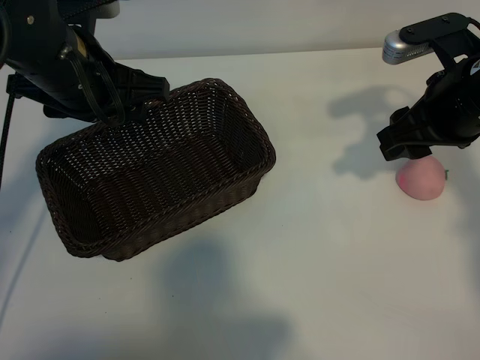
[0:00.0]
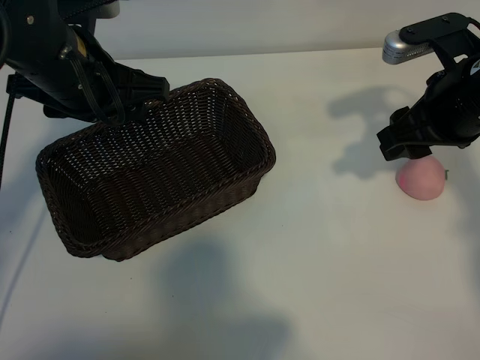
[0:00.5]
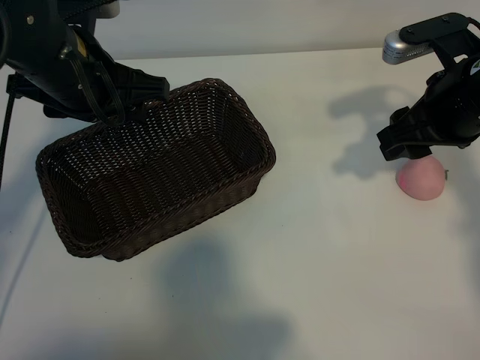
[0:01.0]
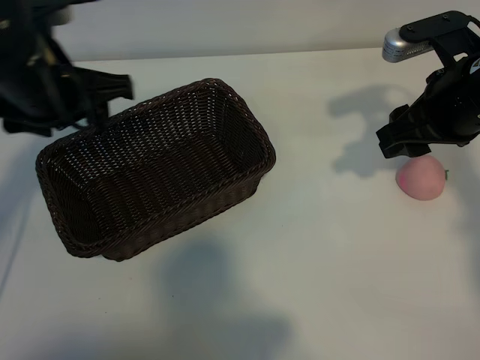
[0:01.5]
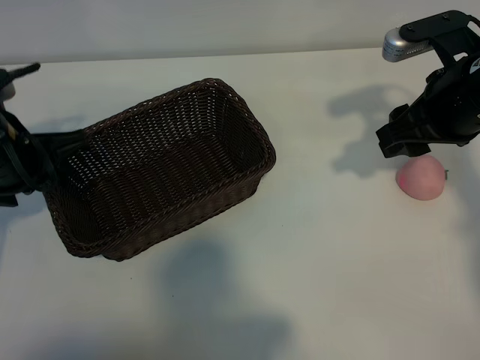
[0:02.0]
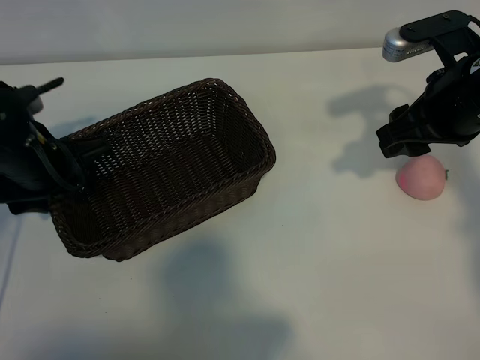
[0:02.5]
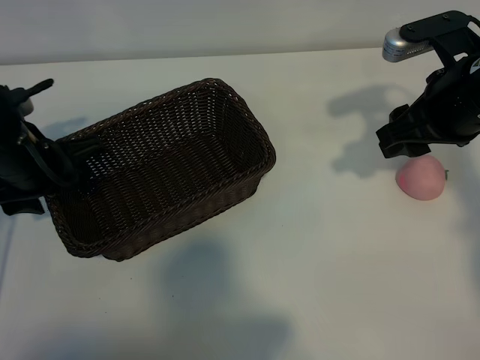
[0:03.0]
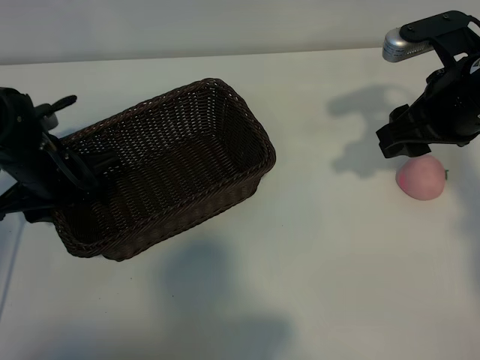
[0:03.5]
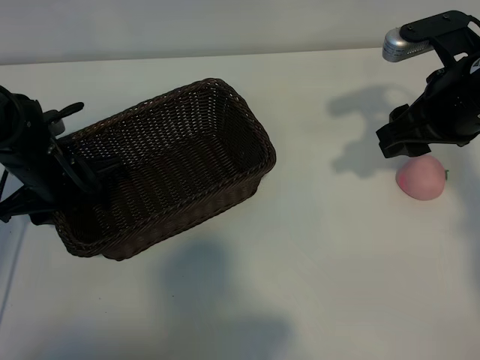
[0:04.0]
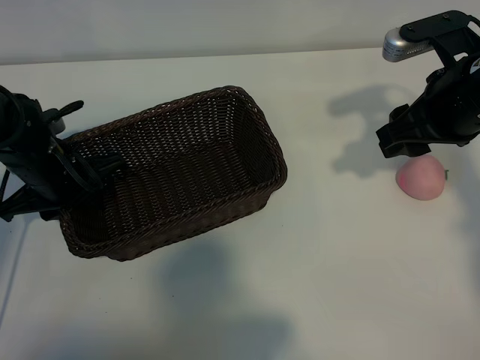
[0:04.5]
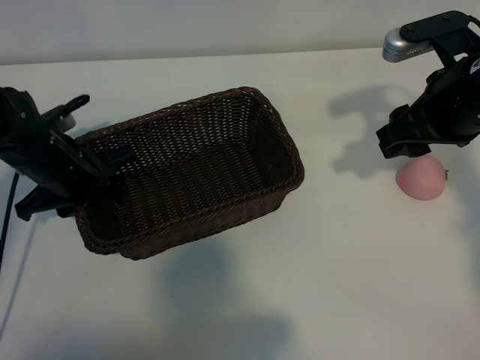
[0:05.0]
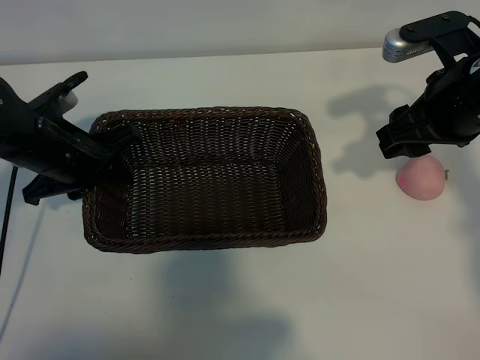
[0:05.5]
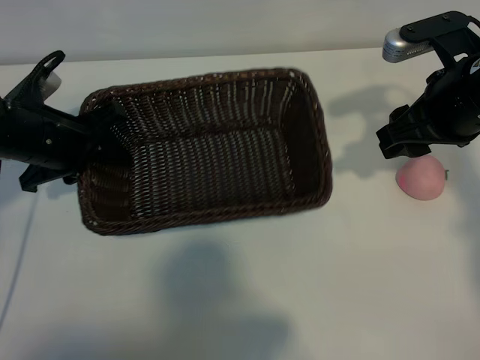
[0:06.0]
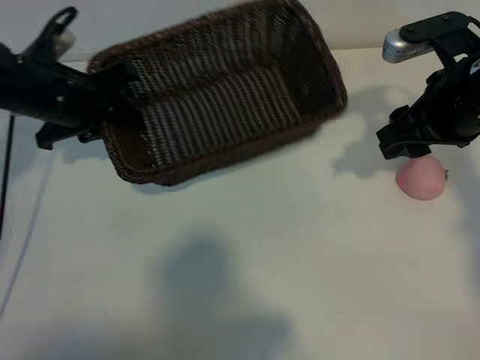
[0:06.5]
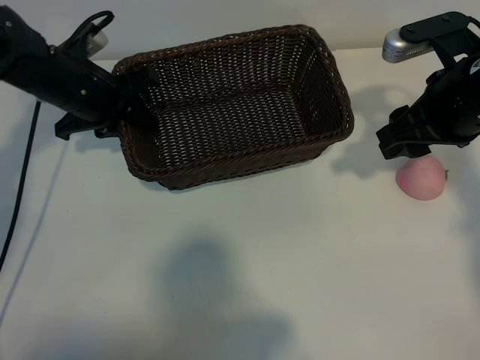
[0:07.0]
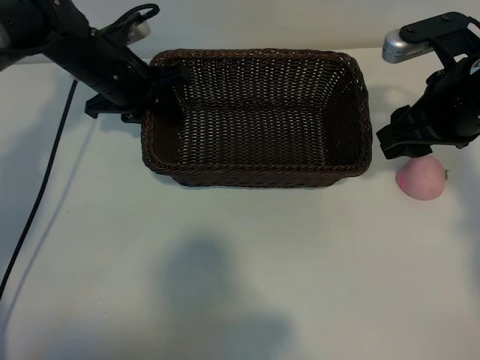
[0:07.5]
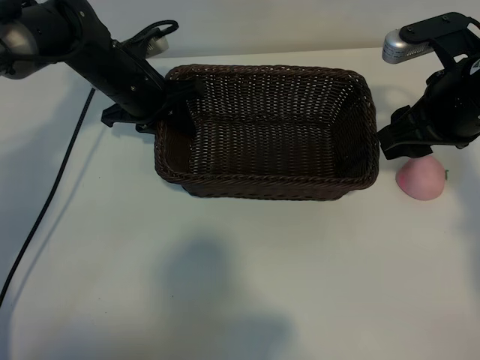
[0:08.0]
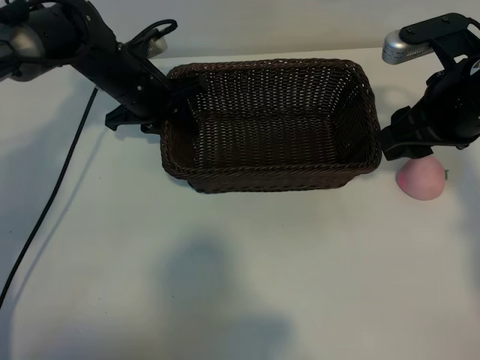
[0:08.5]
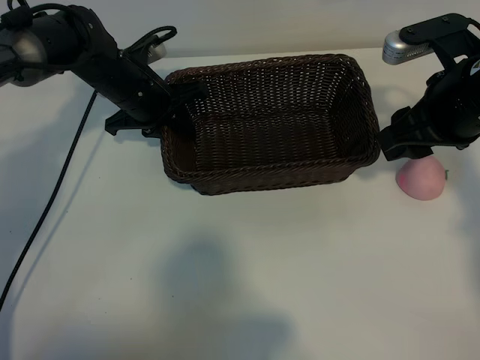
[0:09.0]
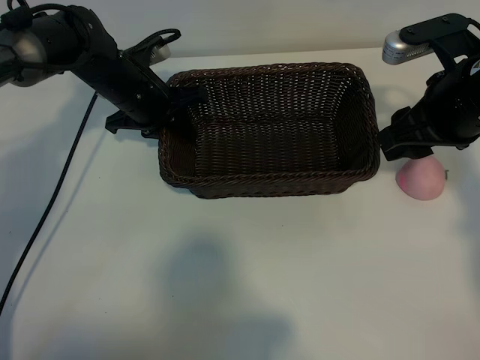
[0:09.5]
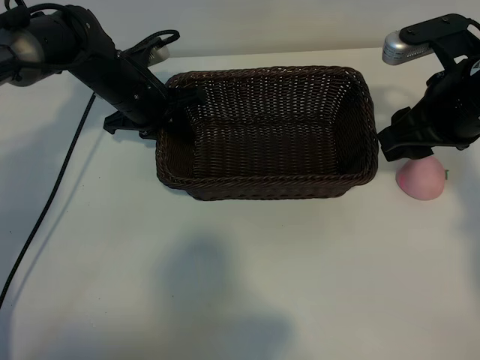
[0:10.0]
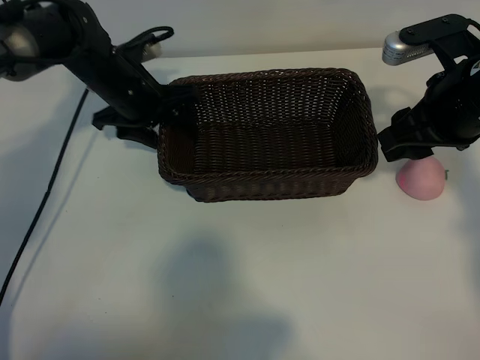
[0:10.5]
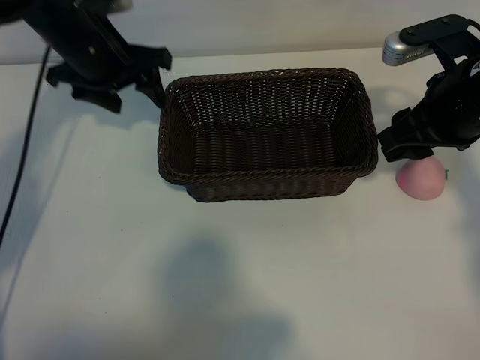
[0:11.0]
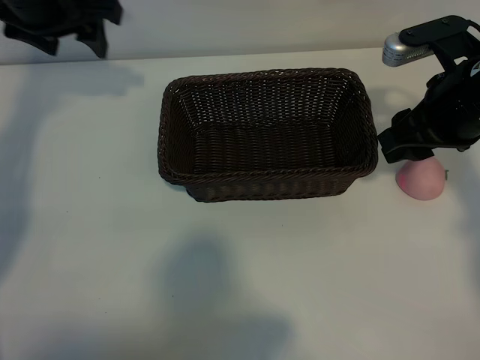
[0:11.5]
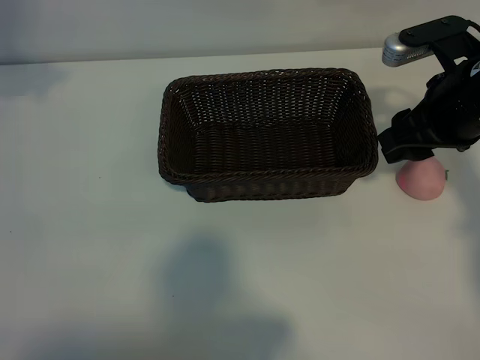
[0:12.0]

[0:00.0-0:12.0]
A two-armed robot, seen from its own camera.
Task of the whole recording: pick up the peach and put it into the basket.
Step, 0:01.5 to 0:04.5: Grasp the basket with left gripper.
Step, 0:05.0 to 0:10.5: Place the basket in the center of view with left gripper.

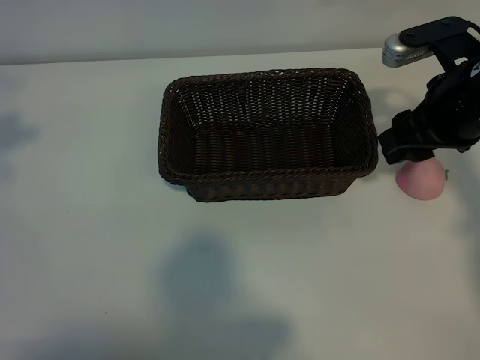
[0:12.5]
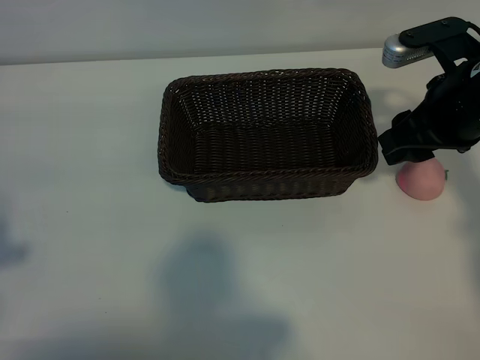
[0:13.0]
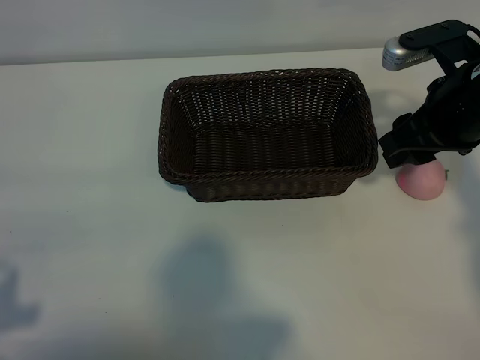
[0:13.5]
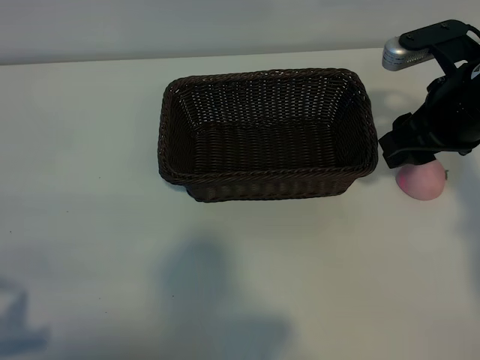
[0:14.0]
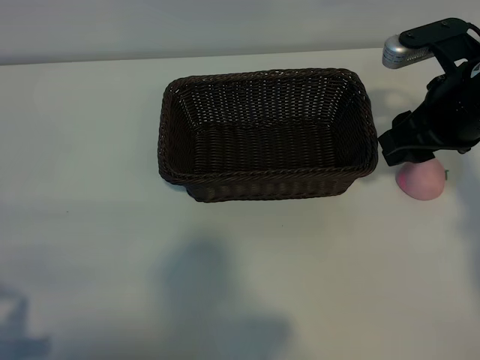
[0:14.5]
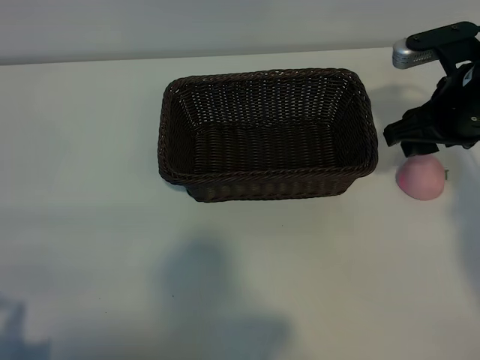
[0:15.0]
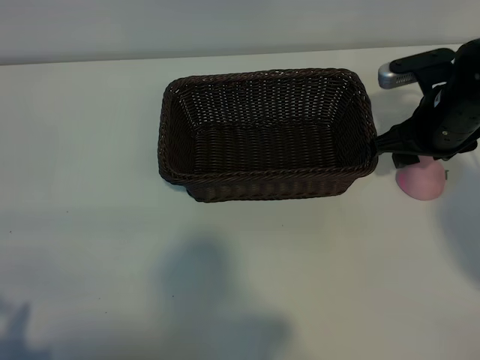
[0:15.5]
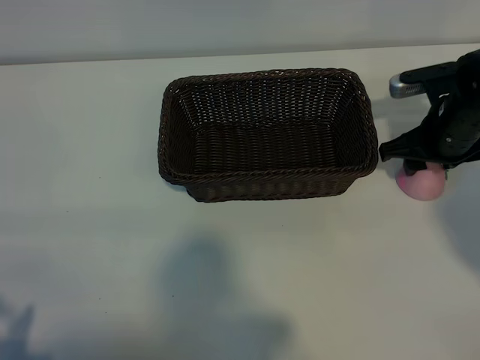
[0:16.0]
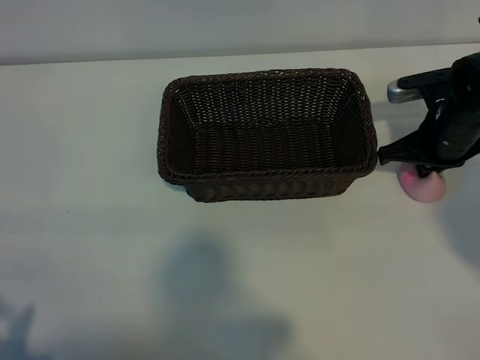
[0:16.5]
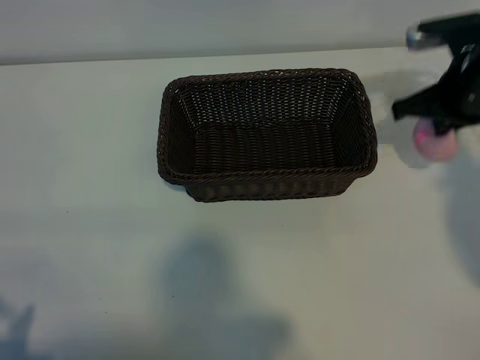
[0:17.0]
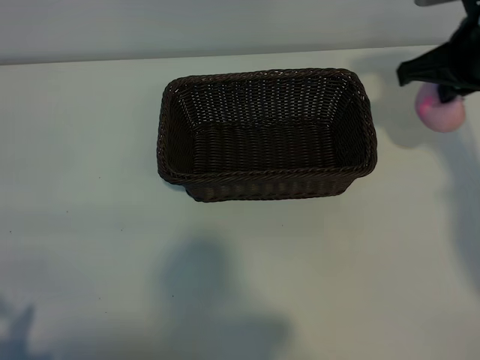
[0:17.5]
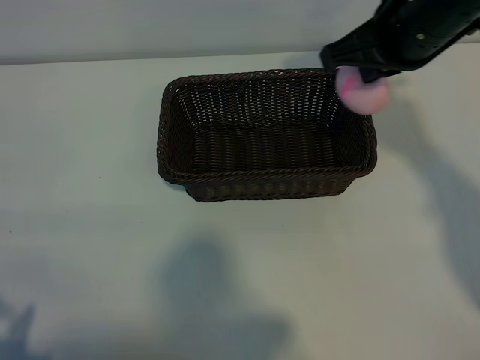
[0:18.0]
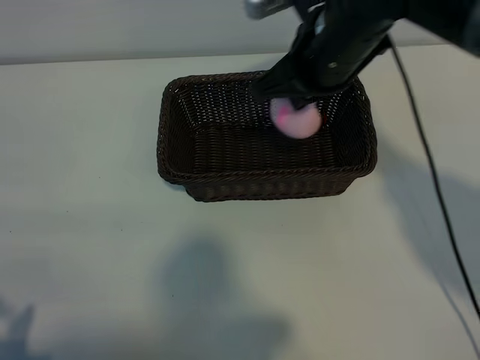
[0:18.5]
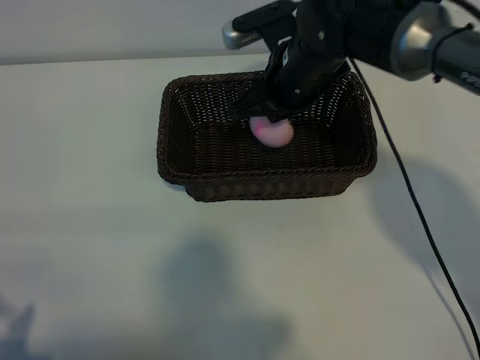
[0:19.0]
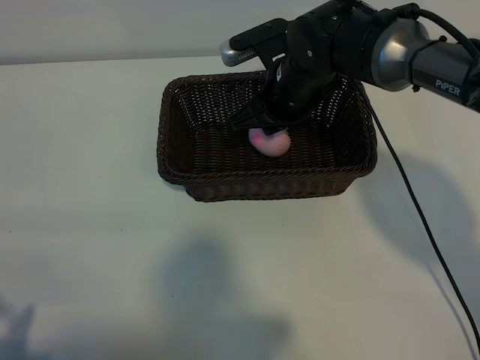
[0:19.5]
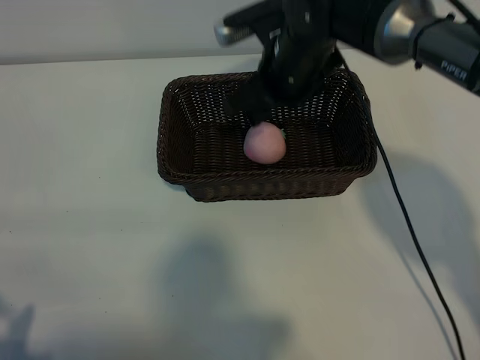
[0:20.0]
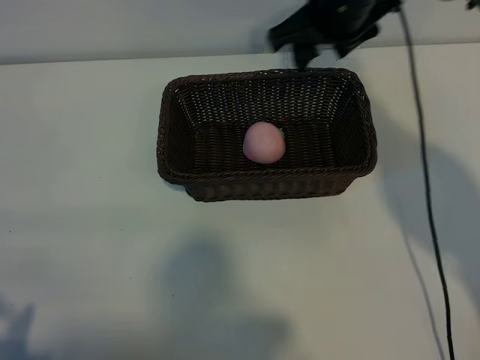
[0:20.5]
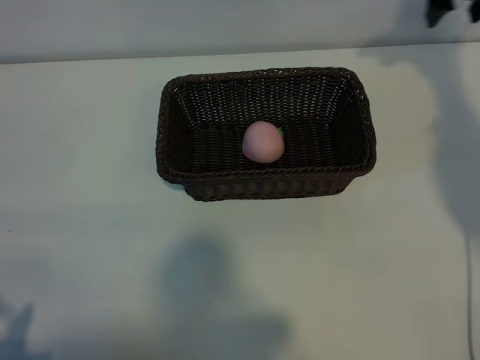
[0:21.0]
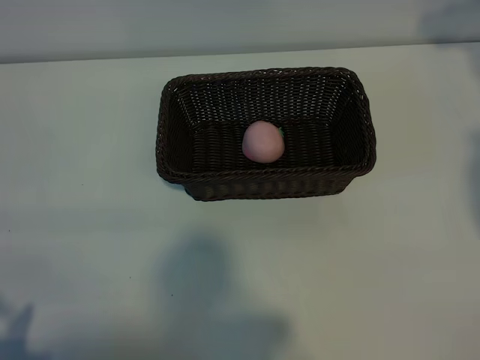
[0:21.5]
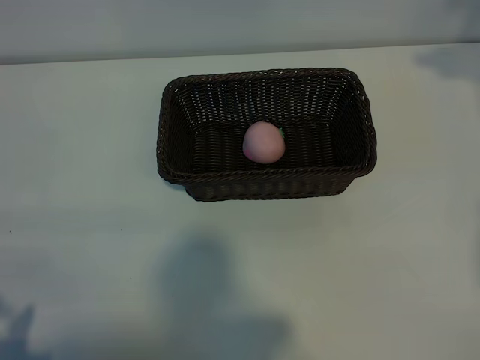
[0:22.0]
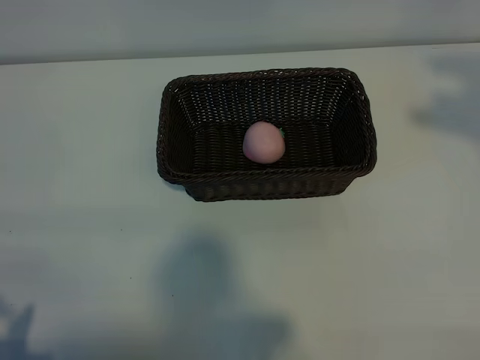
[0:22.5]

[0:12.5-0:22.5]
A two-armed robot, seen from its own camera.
Task of the whole recording: pick up the peach and put it into the basket.
Step, 0:12.5 to 0:16.5: Grasp the peach with right gripper.
Step, 0:17.0 to 0:19.5: Place the peach in the basket with right gripper.

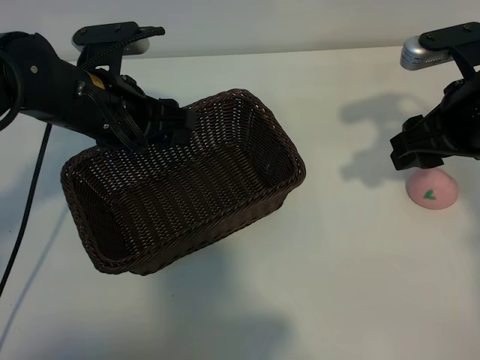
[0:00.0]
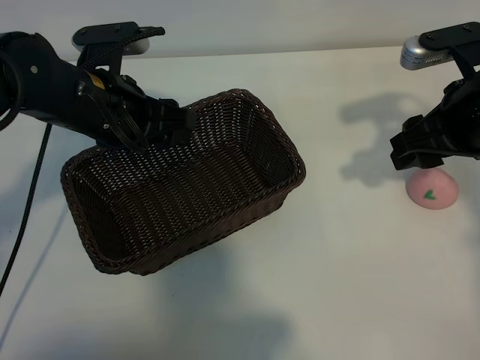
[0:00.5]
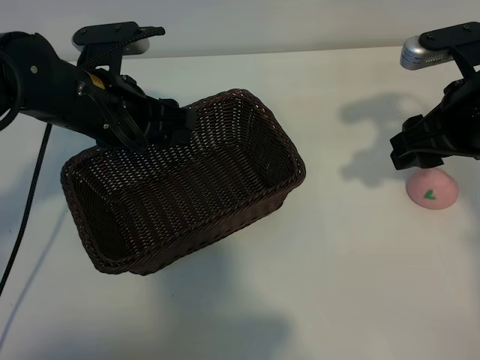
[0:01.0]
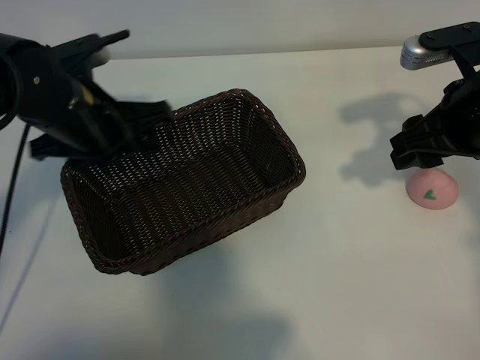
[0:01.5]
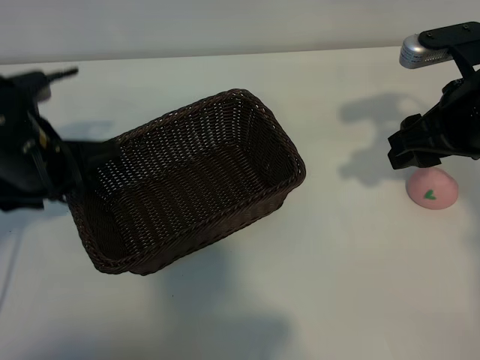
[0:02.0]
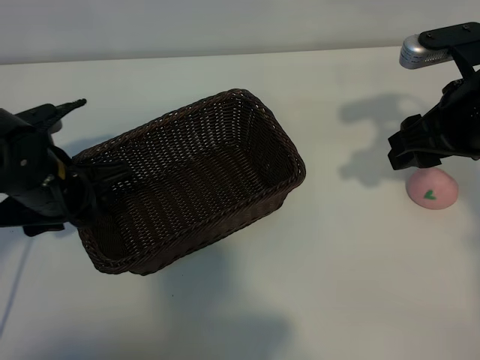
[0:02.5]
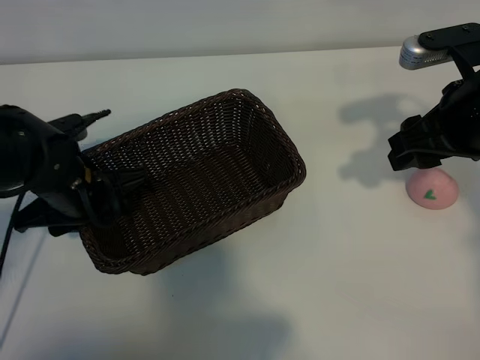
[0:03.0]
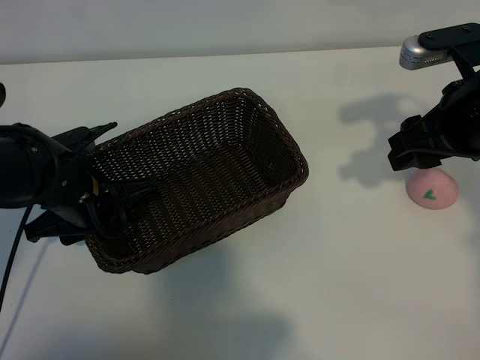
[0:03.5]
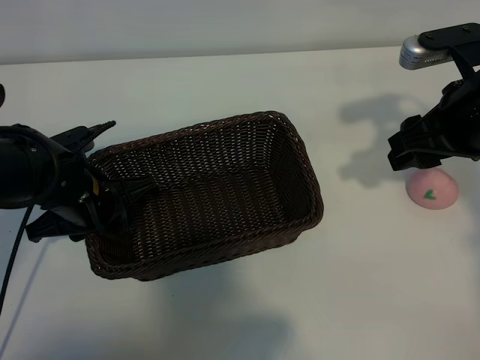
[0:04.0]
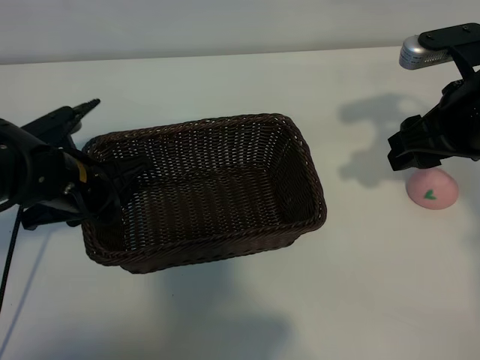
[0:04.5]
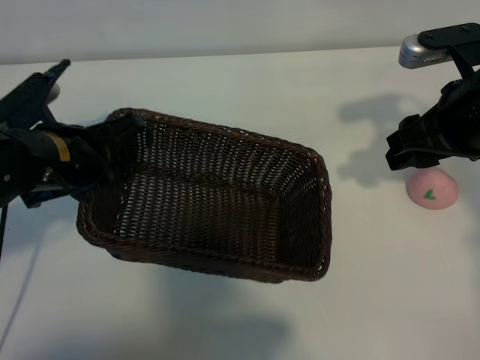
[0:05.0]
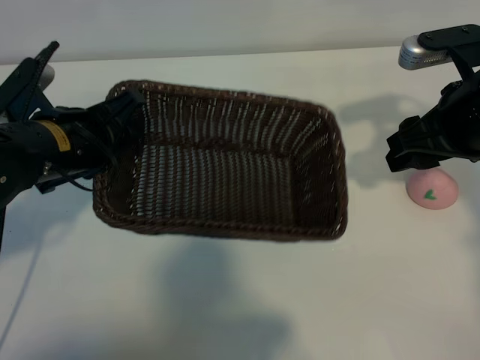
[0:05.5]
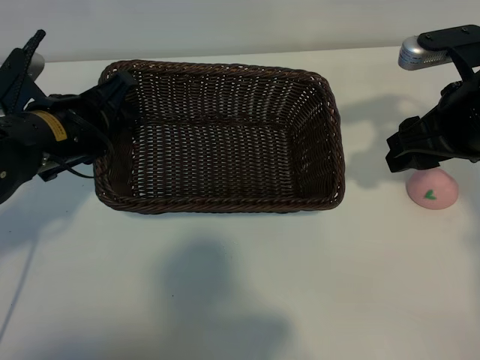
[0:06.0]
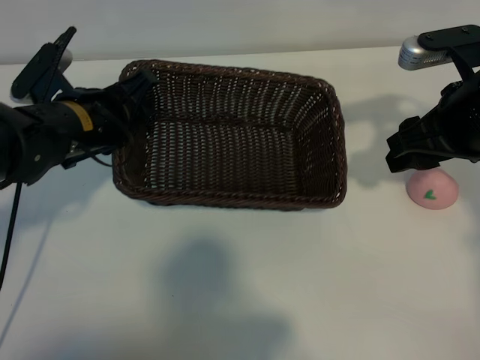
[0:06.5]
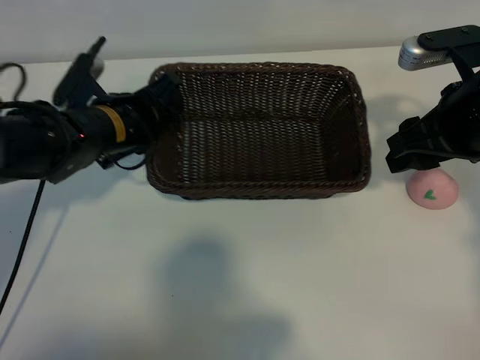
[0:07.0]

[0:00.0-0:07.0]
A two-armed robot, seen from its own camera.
Task of the whole recording: pick up the peach and put it into the basket.
Step, 0:01.5 to 0:04.0: Grasp the basket with left gripper.
